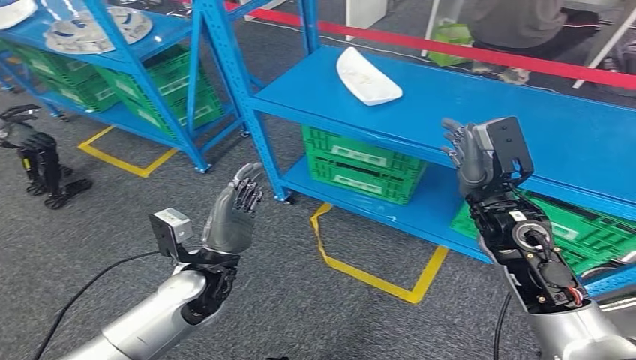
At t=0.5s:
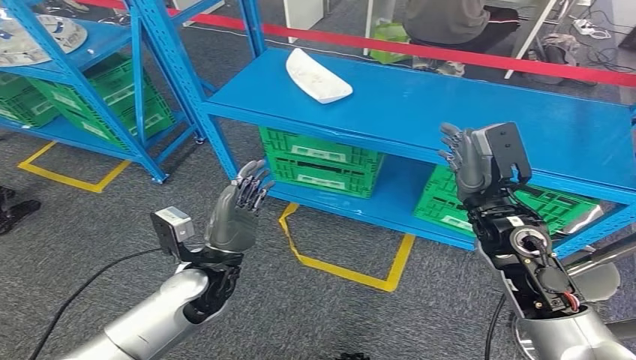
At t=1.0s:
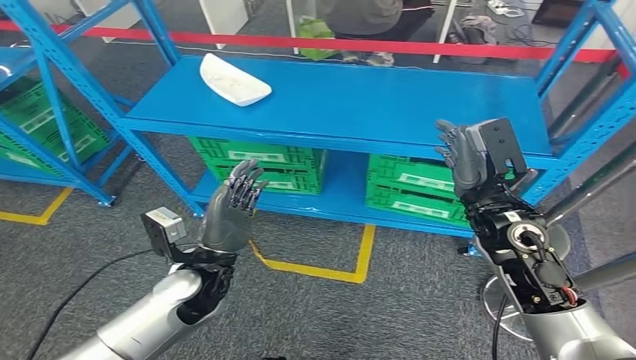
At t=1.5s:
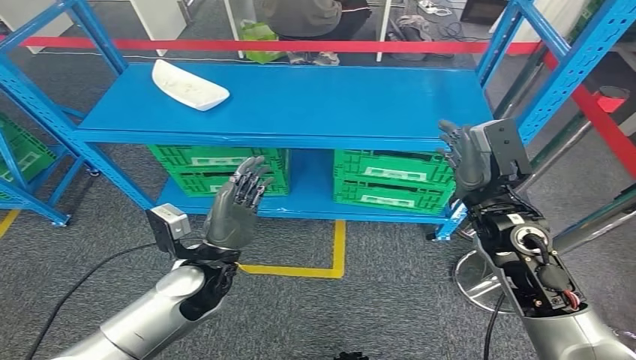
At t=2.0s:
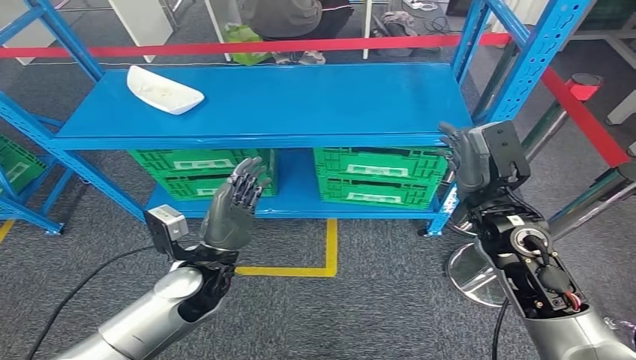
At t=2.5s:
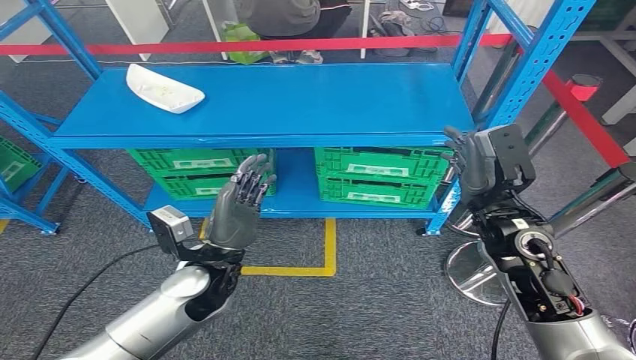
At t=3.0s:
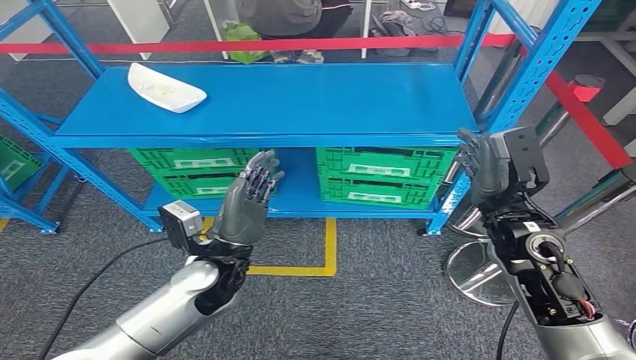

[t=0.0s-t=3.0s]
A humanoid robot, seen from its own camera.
Step, t=0.0s to t=3.0s: Return to the initial position at the workbench.
